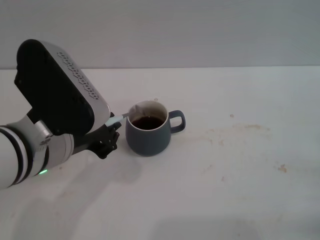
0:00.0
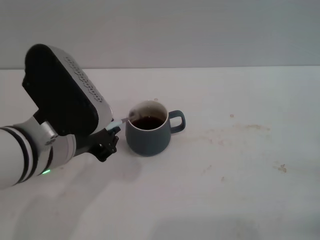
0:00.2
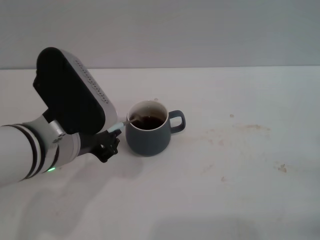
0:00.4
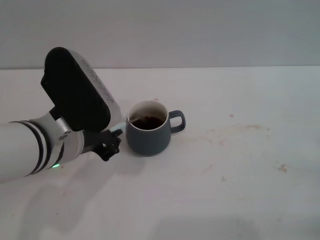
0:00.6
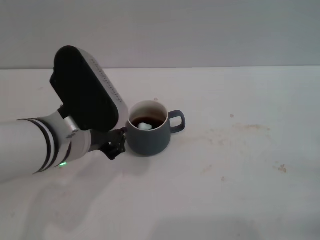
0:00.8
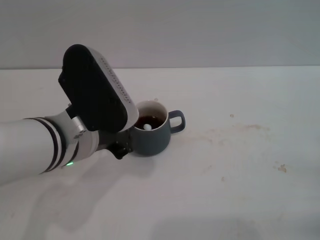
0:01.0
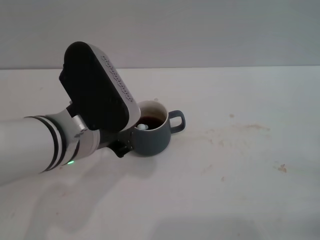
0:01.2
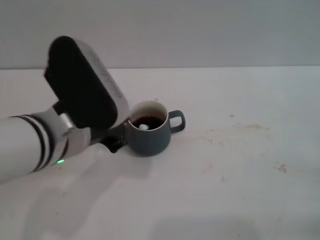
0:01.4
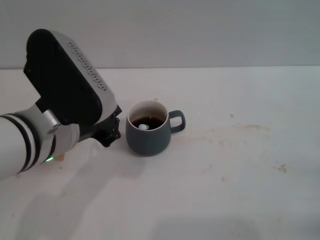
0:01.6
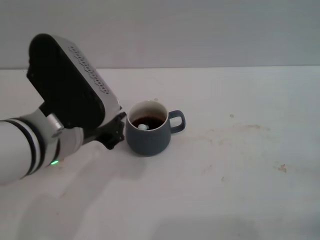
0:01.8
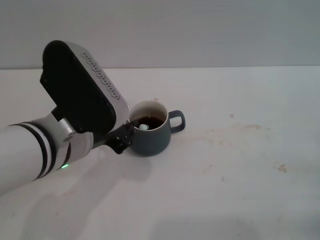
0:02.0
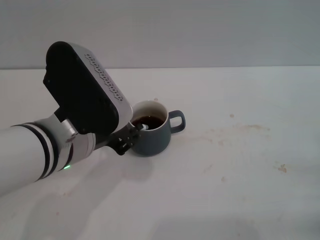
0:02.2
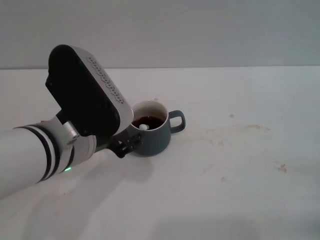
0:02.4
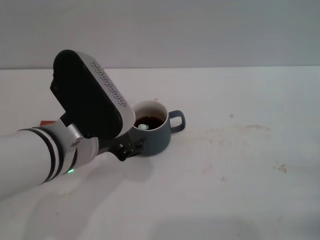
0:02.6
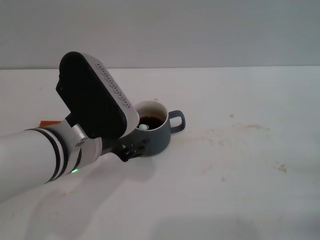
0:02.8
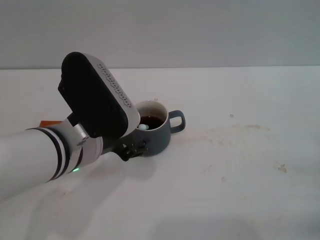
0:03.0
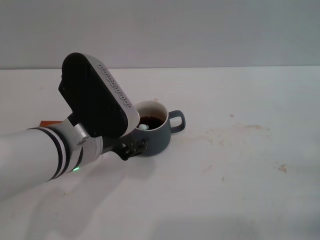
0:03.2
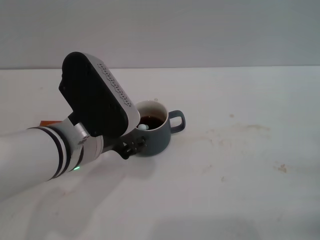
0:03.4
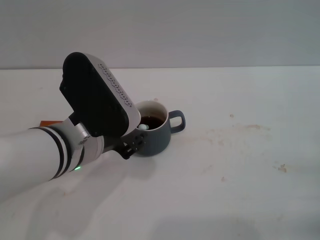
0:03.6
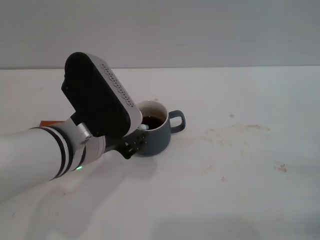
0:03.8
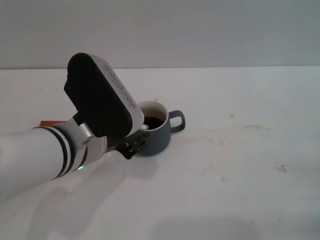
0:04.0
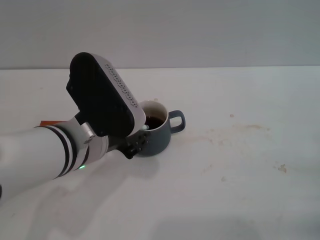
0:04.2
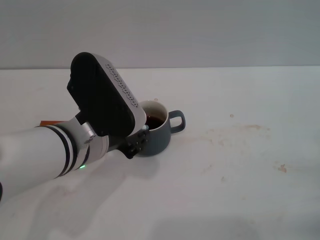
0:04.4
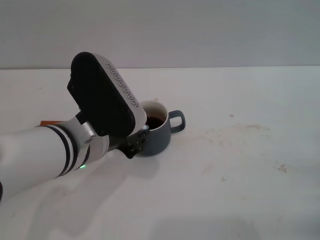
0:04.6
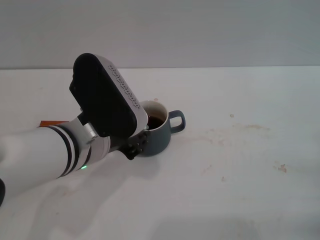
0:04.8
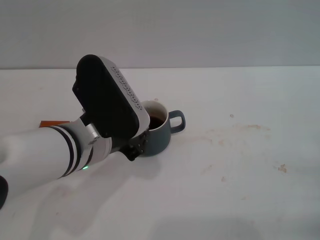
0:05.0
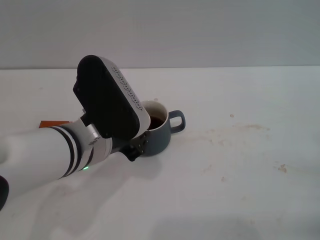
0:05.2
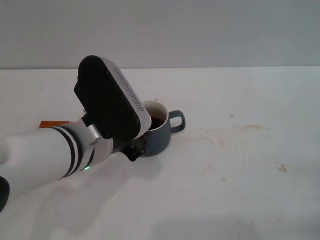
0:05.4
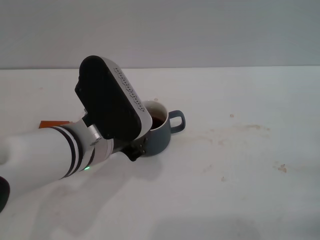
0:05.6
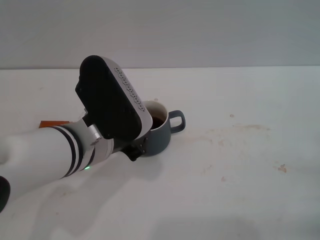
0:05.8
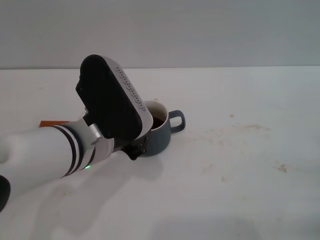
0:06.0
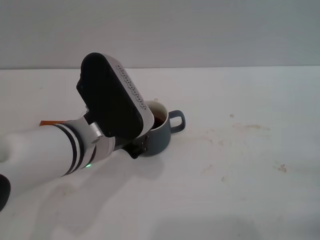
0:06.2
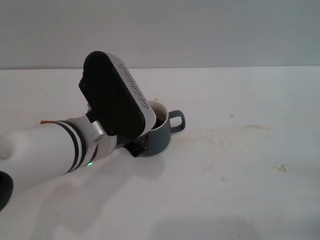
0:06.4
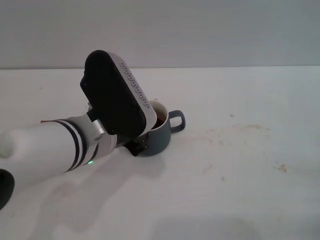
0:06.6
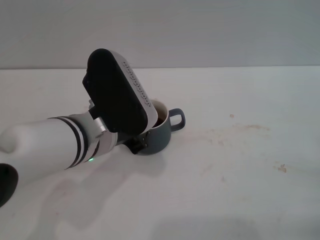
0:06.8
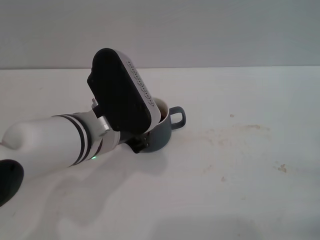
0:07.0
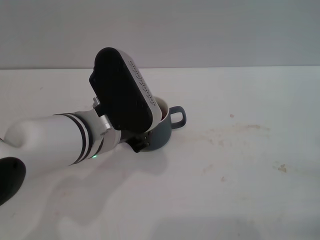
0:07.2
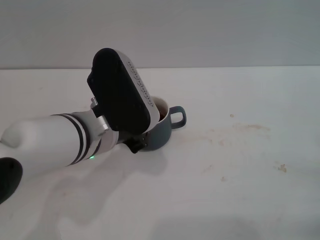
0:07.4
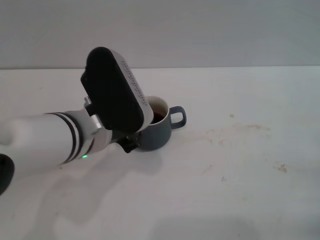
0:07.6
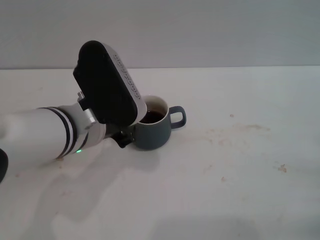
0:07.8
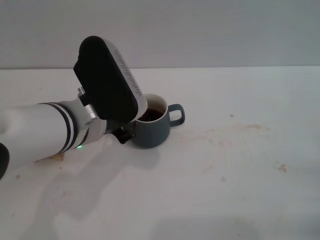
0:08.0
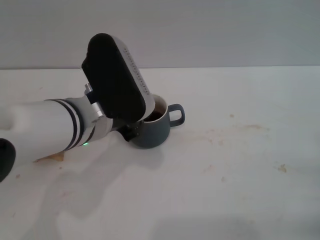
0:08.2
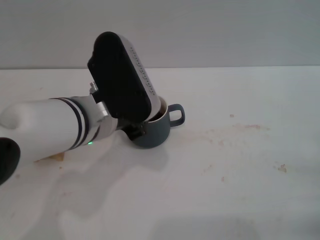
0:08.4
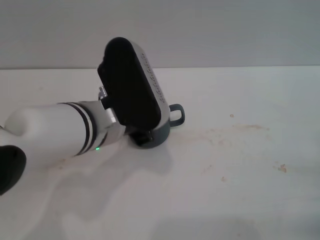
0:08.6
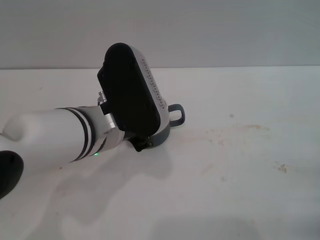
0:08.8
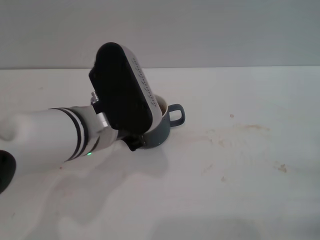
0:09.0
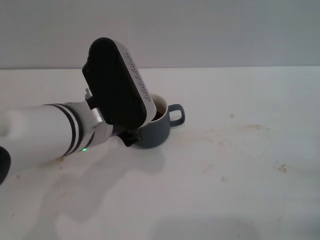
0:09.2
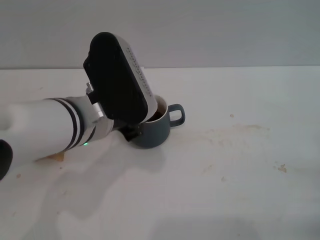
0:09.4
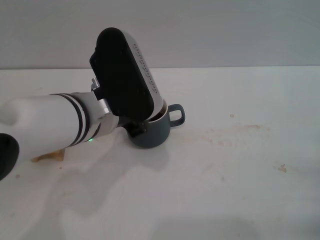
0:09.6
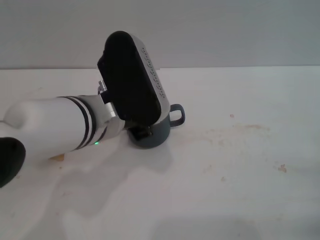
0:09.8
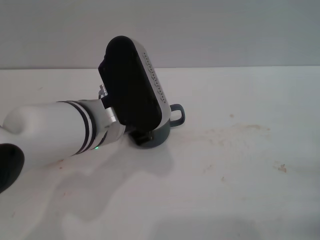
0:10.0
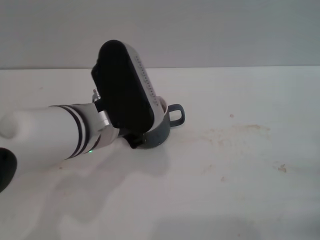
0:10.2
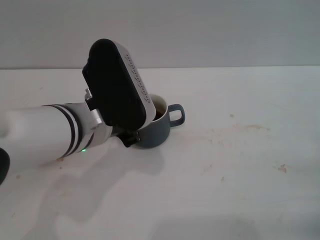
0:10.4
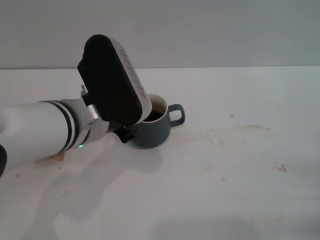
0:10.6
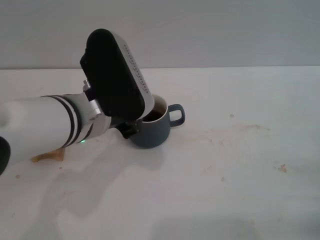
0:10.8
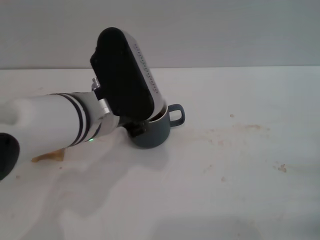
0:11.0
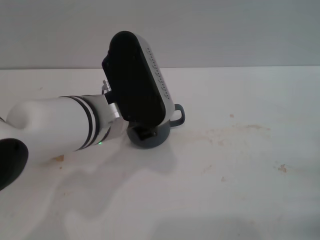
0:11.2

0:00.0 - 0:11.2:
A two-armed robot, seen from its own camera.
Task of the whole recording: Move the grey cup to the center, lift the blue spoon, stir it three times in the cup, and put the spoon into the cup.
0:00.0 - 0:01.6: The grippers make only small movements.
0:01.6 - 0:03.2: The left gripper opens up.
0:03.2 - 0:04.8: The left gripper closes.
0:04.8 - 0:06.4: Neither gripper changes place.
0:06.4 - 0:09.6: There are only small adjustments of the grippers.
0:09.6 - 0:11.2: Both grippers stay put.

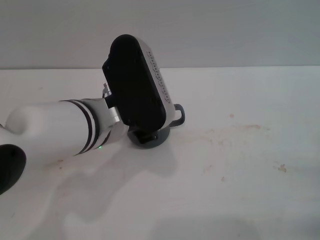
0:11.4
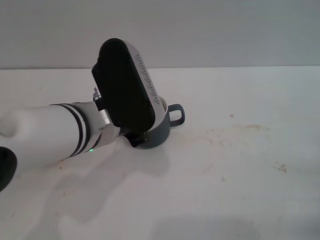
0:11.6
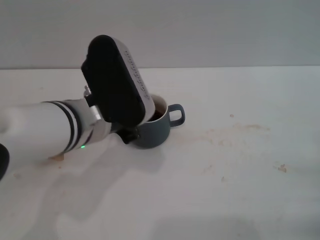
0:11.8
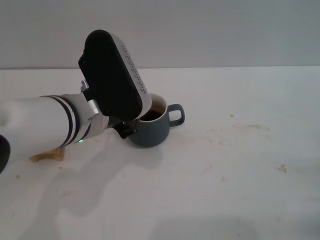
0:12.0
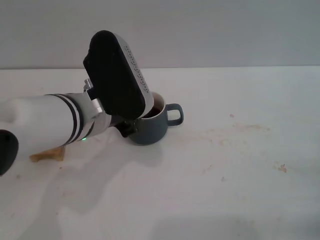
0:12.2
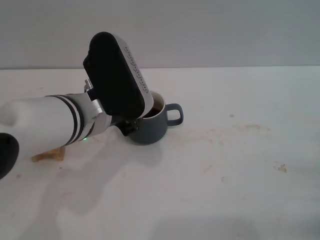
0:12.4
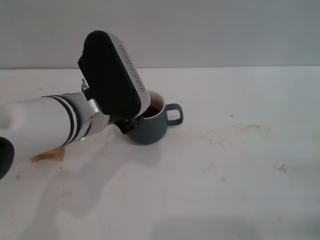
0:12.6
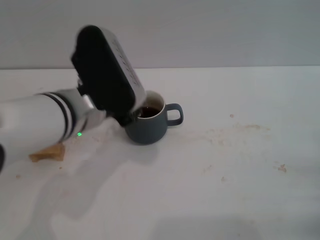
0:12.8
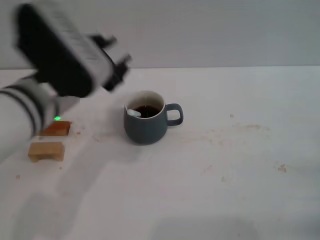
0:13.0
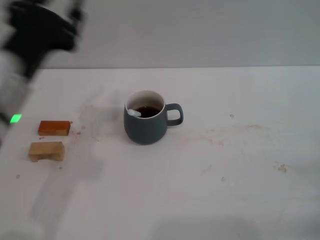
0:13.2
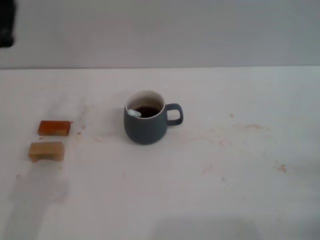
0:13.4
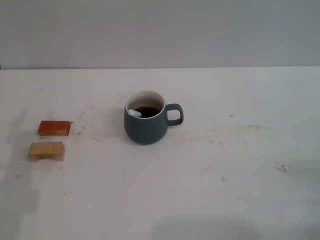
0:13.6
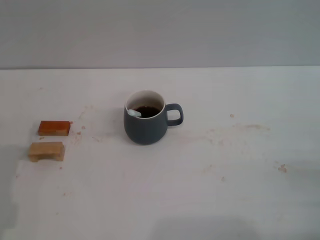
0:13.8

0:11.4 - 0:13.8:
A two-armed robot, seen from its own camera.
Task of the whole recording: Move the grey cup to the center, lift the blue spoon, stir it three times in the cup, and put the spoon into the cup.
0:11.4 - 0:12.6: There are only small adjustments of the grippers.
0:12.6 - 0:13.8: The left gripper is displaced to the left, downward and backward by roughly 20 cm, and opens up.

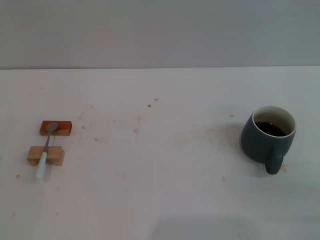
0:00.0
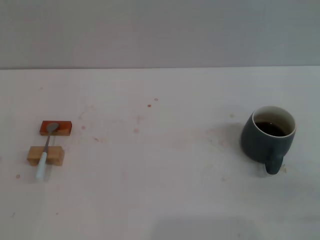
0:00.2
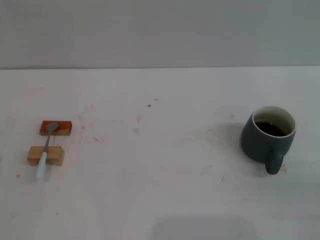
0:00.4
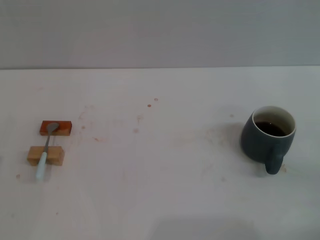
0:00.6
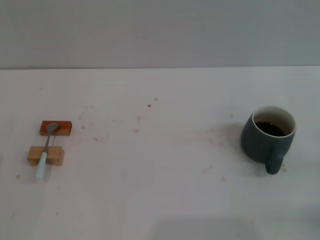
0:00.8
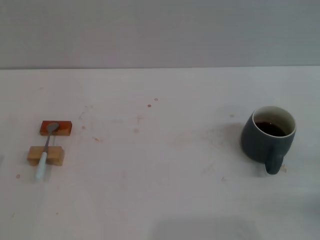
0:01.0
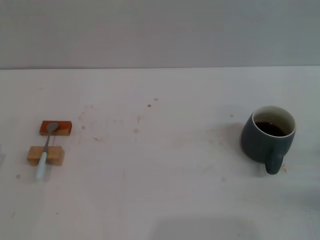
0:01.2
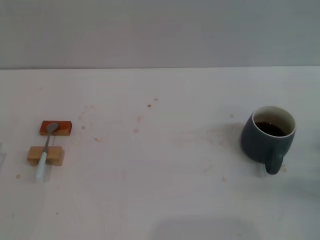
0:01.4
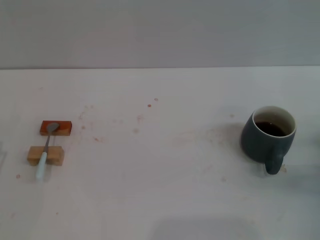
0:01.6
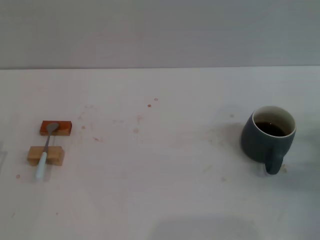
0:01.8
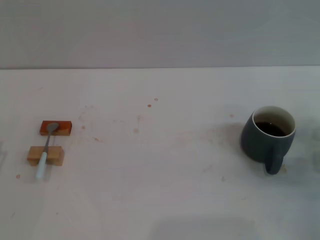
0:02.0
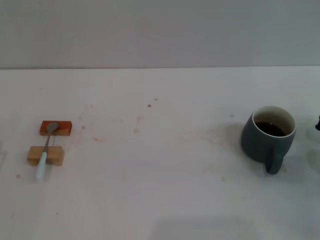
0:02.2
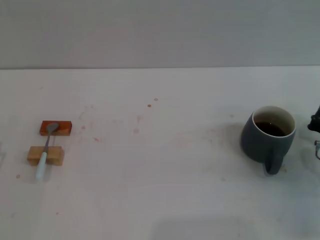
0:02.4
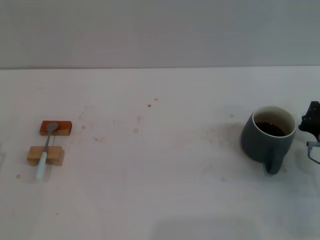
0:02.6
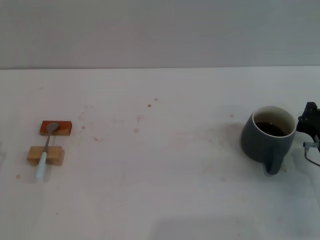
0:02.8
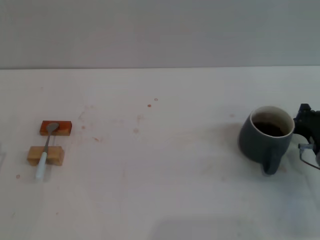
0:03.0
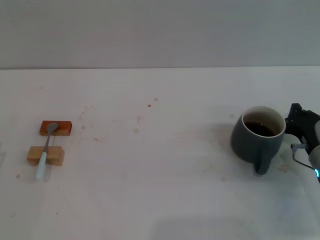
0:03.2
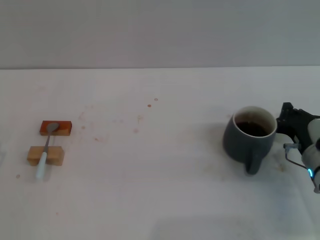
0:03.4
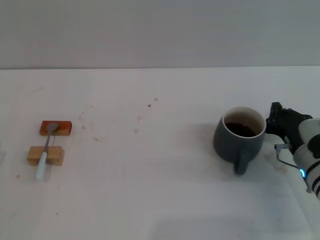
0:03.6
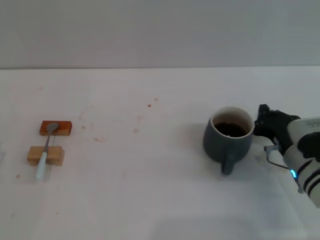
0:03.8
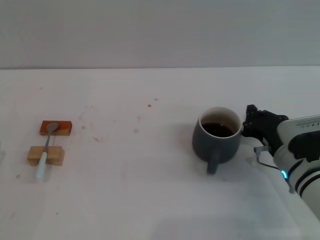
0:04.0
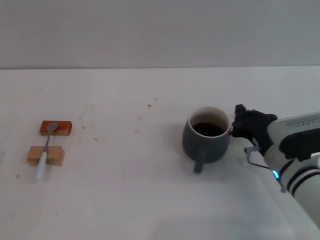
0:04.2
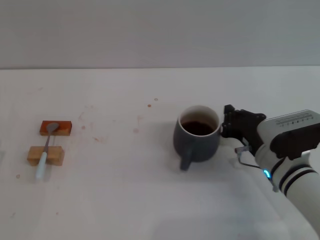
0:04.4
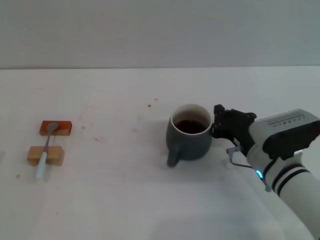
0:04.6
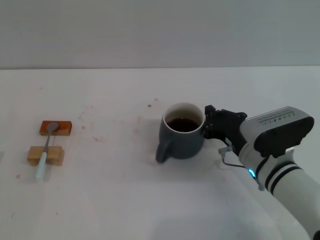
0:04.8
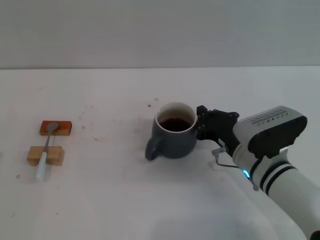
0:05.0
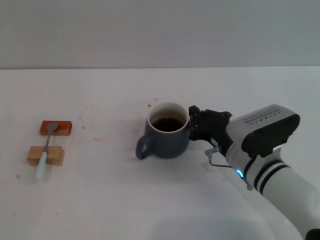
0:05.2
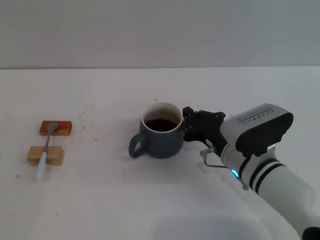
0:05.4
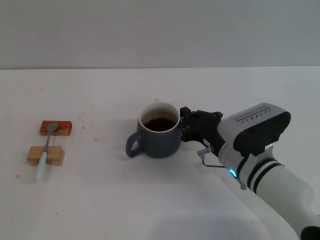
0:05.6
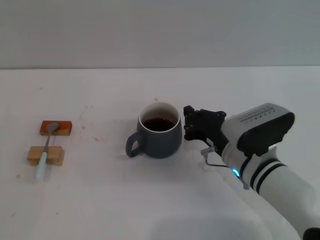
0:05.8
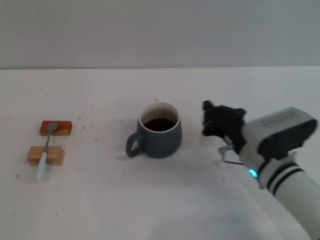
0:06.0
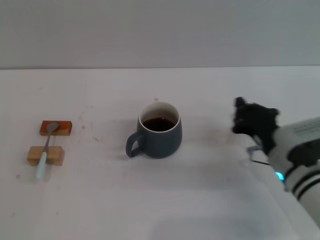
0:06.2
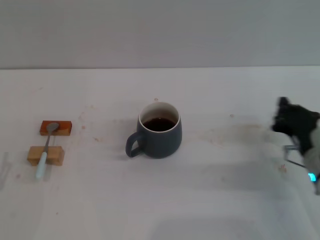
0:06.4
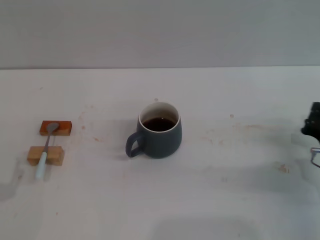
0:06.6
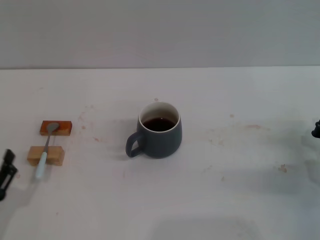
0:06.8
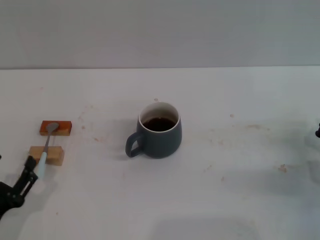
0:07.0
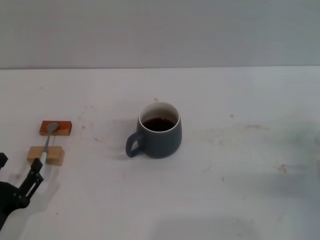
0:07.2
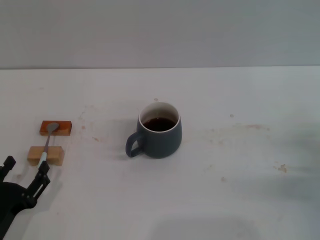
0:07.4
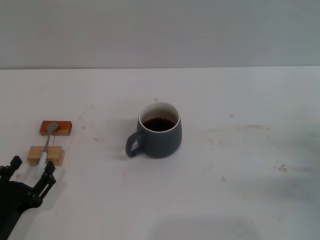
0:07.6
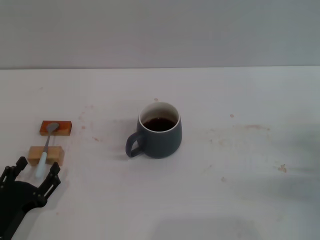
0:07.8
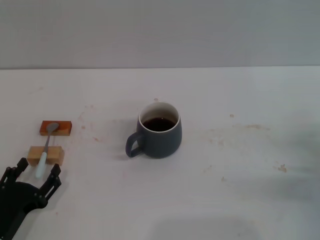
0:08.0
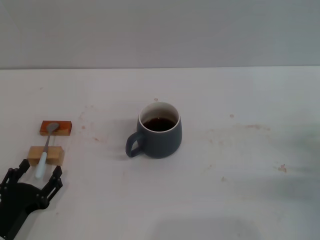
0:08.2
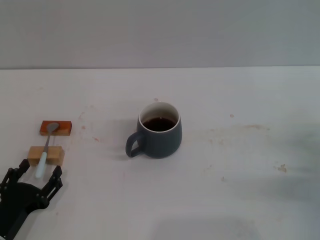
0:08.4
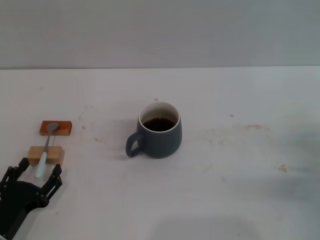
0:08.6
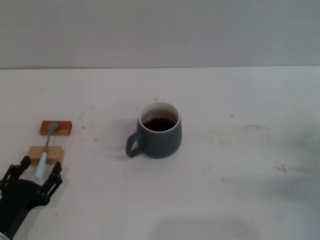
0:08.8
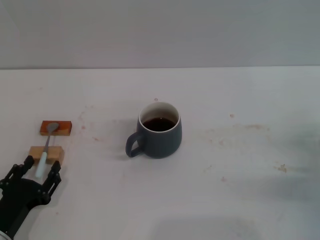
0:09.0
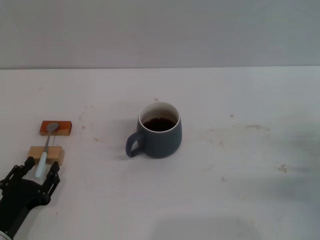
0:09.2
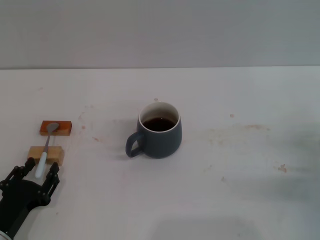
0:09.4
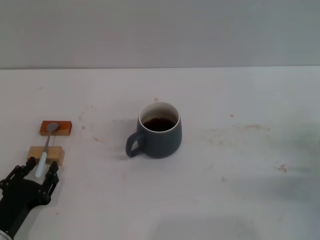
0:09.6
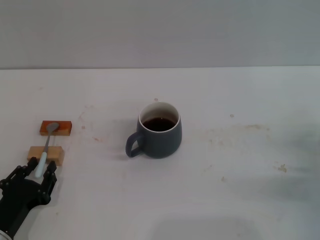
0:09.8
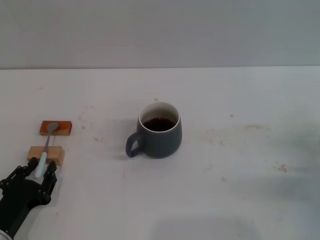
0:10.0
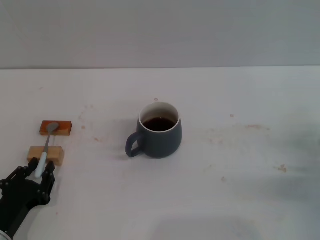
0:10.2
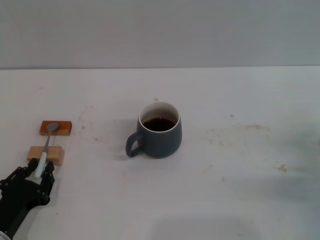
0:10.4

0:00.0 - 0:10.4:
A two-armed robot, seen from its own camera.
Task of the whole recording: Move the grey cup to the center, lift the blue spoon, stir it three times in the cup, and put the spoon into the cup.
Step, 0:00.0 - 0:06.0: Move the cup with coffee to the center of view with the right gripper.
0:01.4 - 0:03.0: The right gripper shifts about 5 cm to the left.
0:03.0 - 0:04.4: The right gripper is displaced to the left by approximately 10 cm.
0:04.4 - 0:06.0: The grippers move only a little.
0:06.0 - 0:07.4: The left gripper shifts roughly 5 cm to the right; the right gripper shifts some 15 cm to the right.
0:07.4 - 0:09.0: There are only small adjustments of the grippers.
0:09.0 - 0:10.4: The left gripper closes its fingers.
